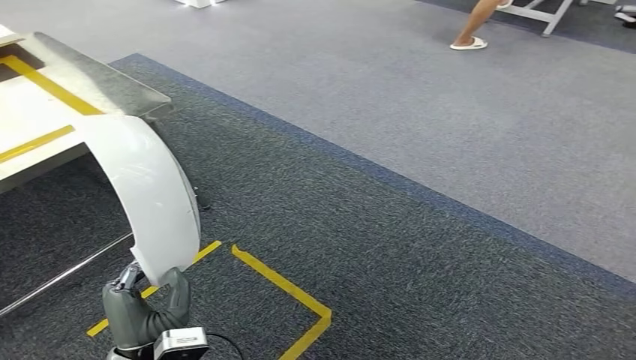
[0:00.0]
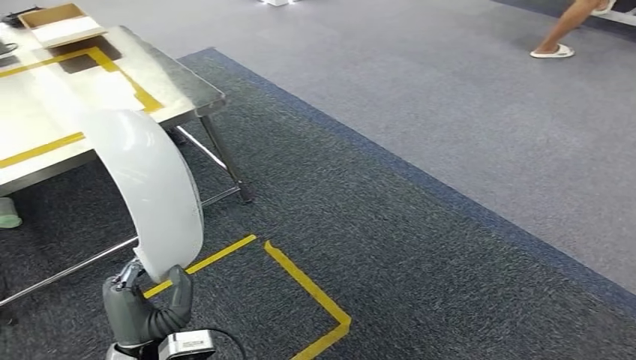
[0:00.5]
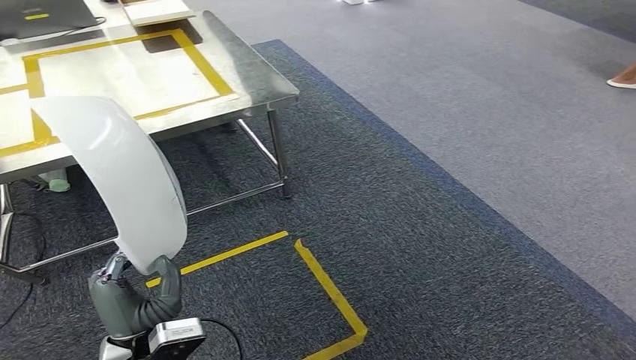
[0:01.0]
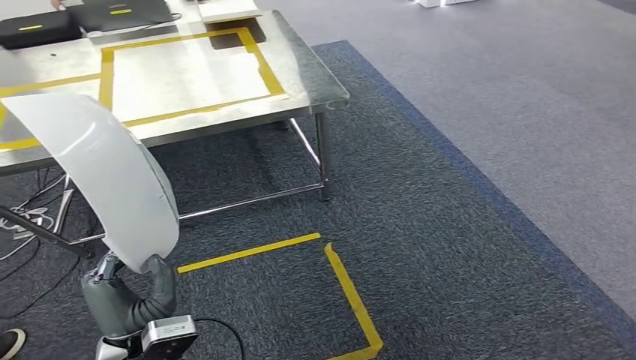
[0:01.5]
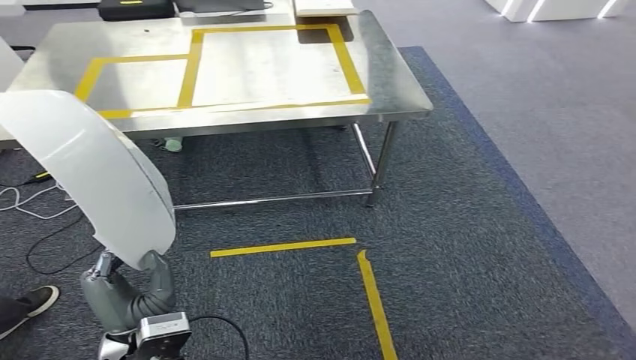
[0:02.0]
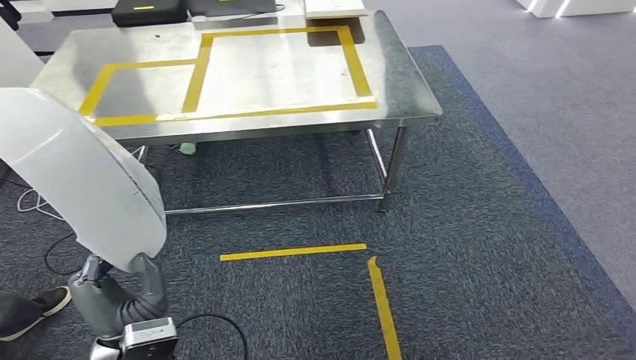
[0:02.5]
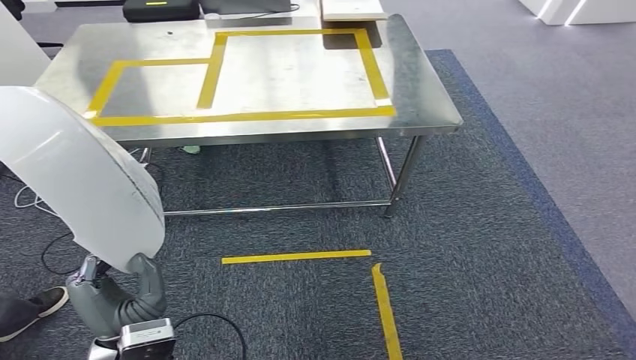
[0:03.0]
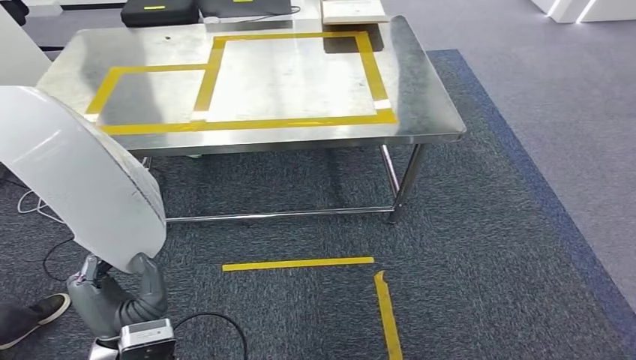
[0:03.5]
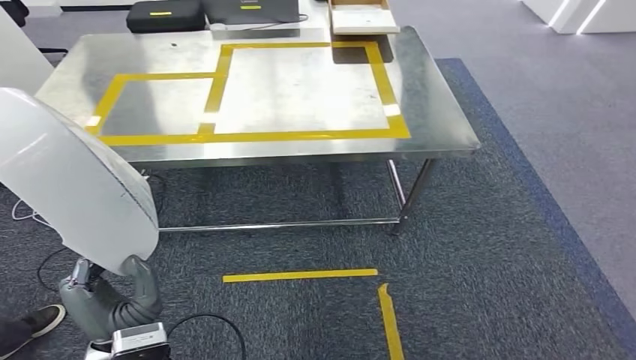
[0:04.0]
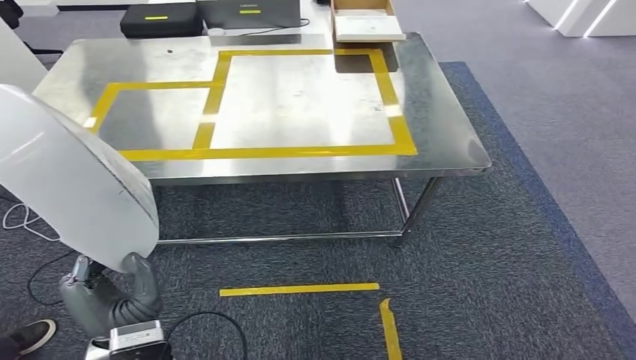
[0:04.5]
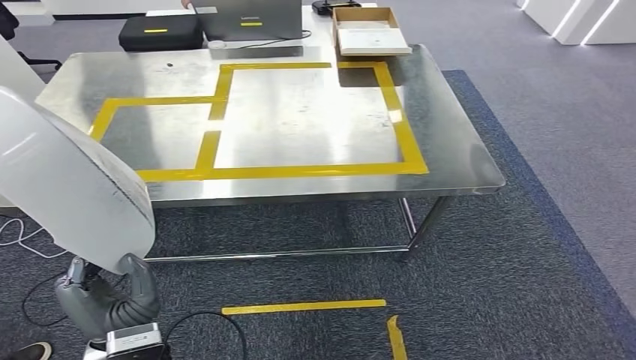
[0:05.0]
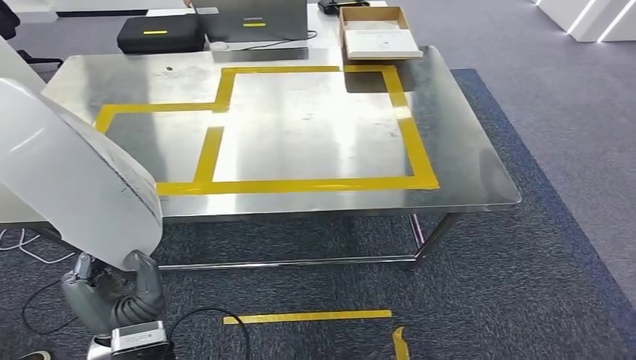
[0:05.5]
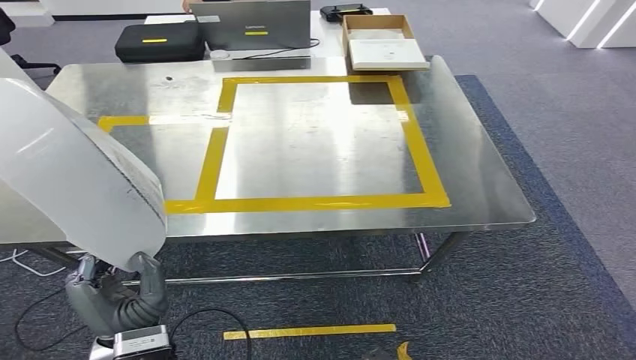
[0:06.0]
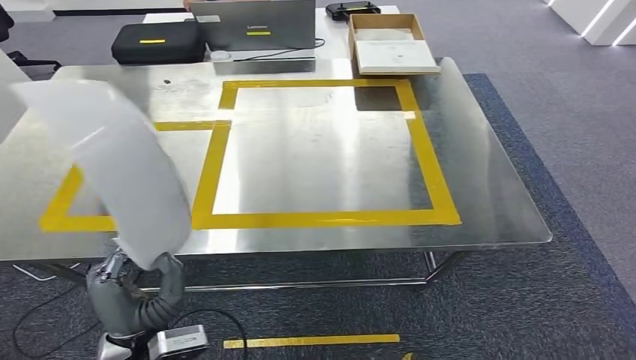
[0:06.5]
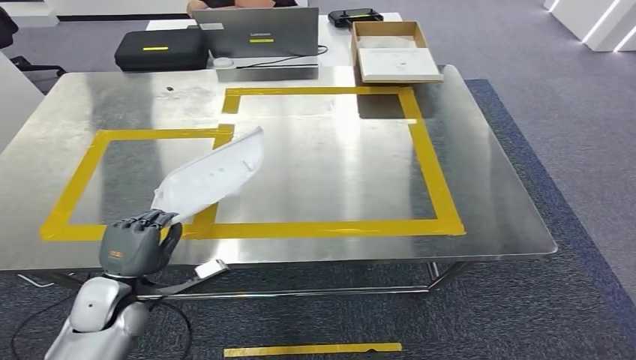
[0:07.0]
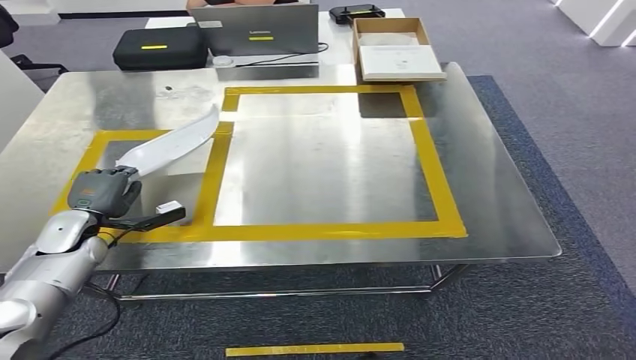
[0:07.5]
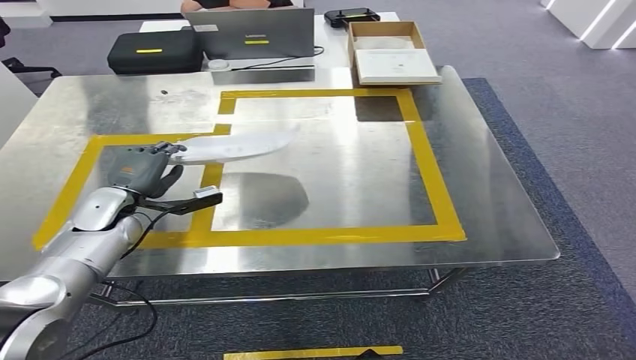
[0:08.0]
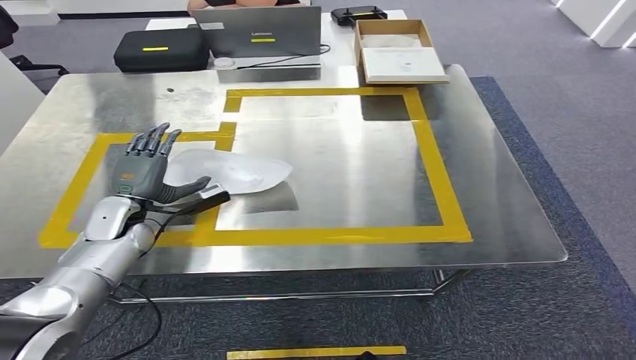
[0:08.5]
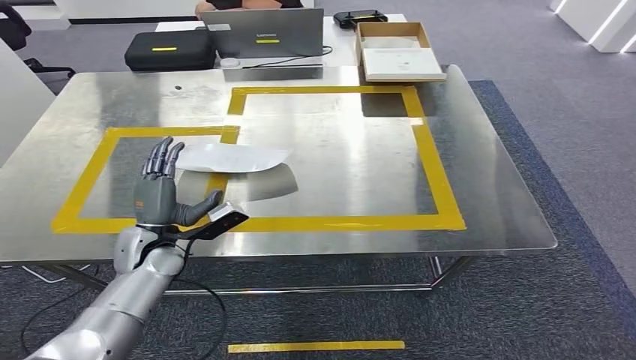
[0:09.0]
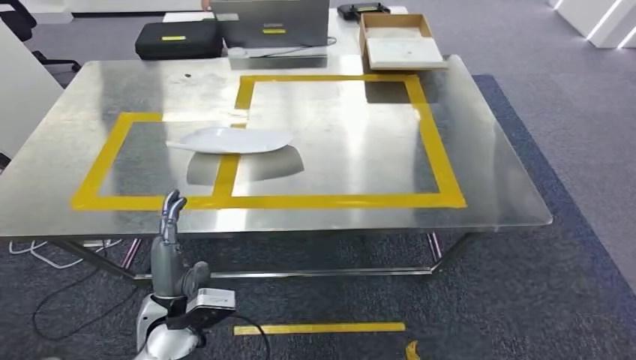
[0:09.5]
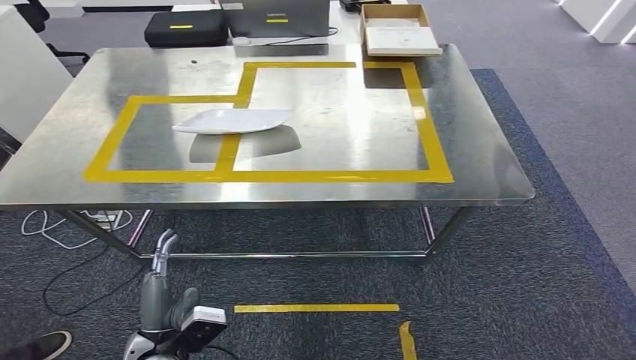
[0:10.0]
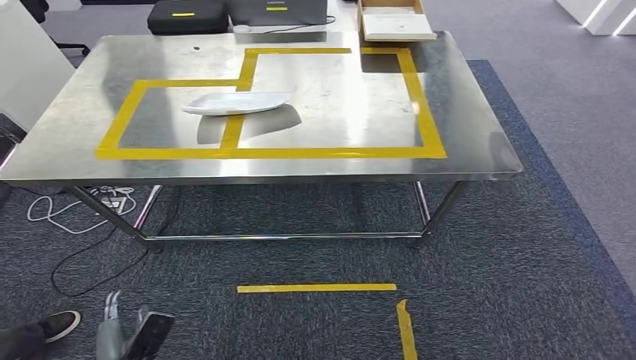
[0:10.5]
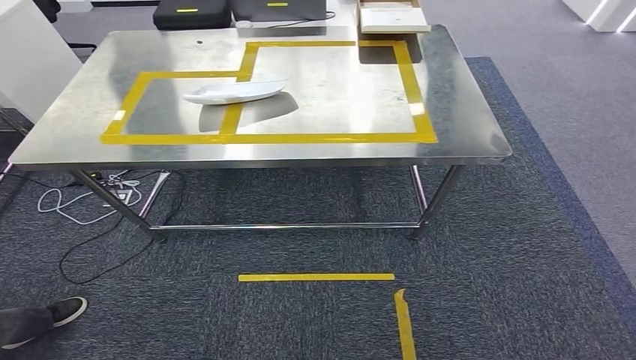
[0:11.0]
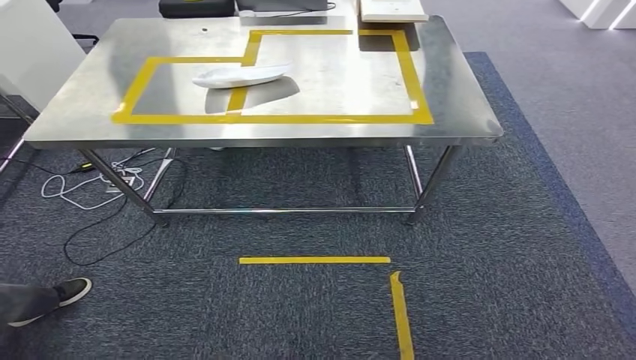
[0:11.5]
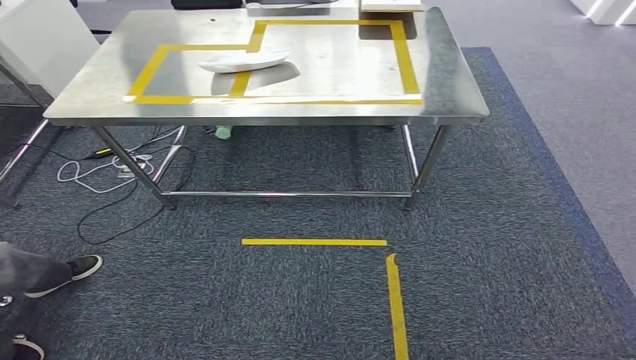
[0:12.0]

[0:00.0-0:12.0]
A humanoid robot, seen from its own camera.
Step, 0:00.0 to 0:05.0: Bring the small component to the front of the workbench.
Step, 0:05.5 to 0:10.5: Insert the small component into the corresponding slot on the workbench.

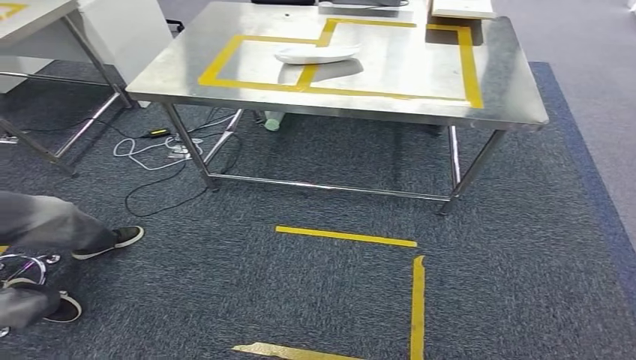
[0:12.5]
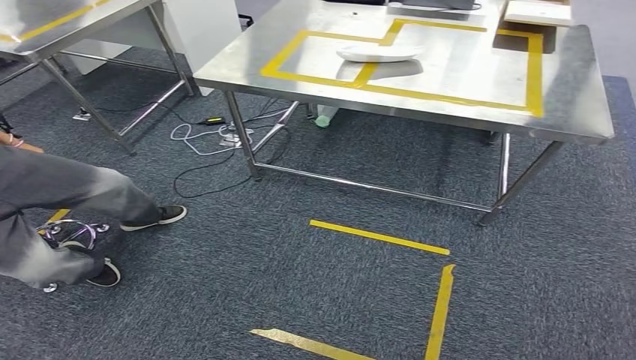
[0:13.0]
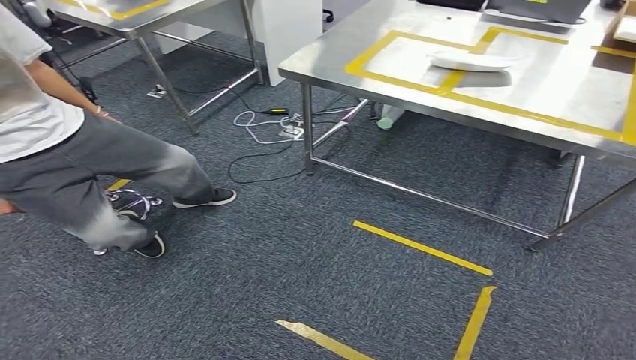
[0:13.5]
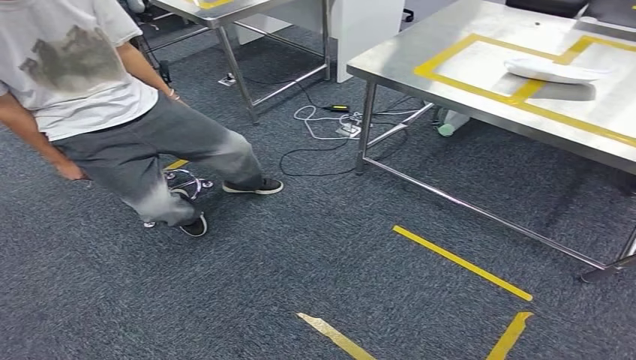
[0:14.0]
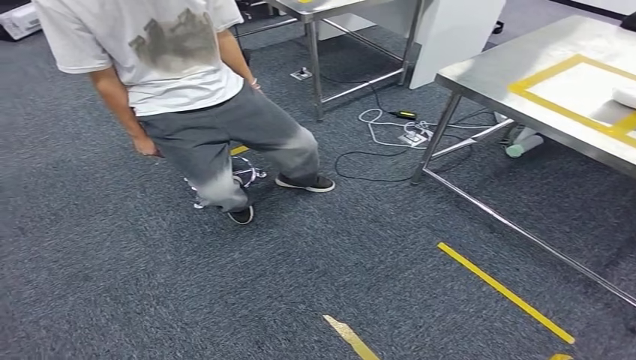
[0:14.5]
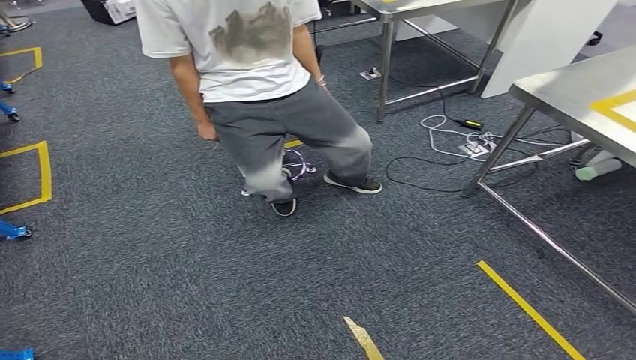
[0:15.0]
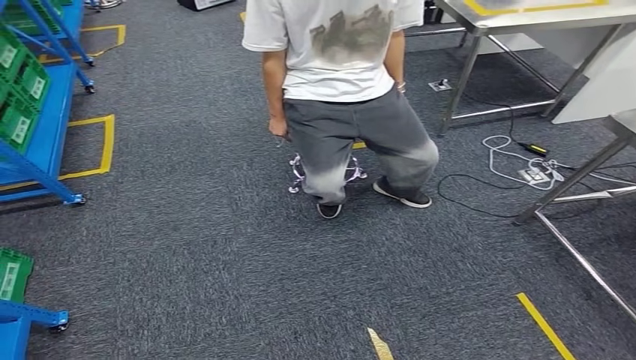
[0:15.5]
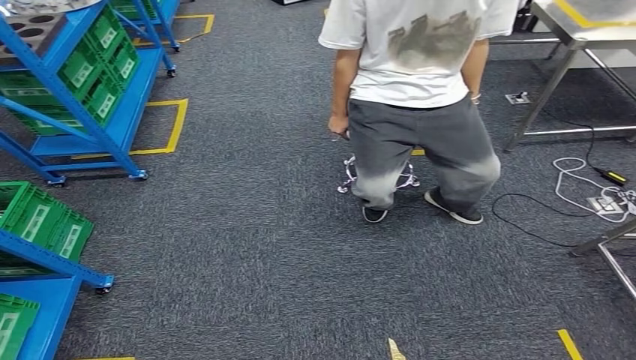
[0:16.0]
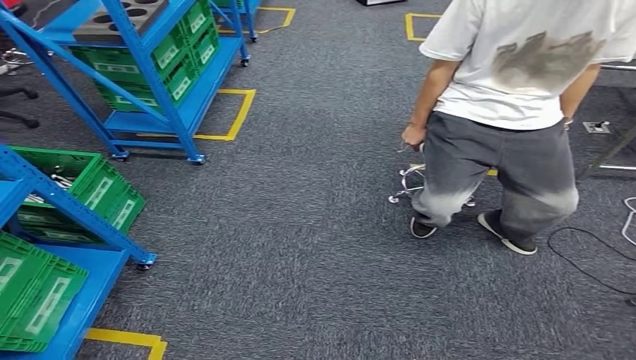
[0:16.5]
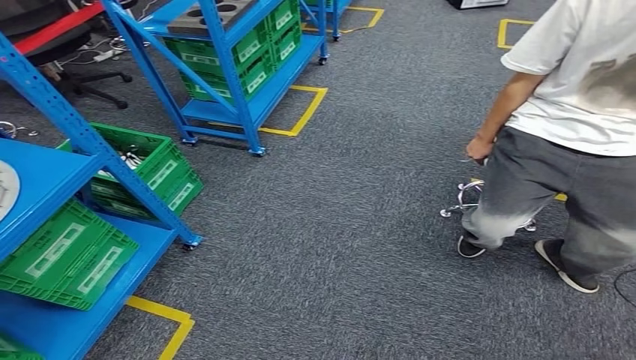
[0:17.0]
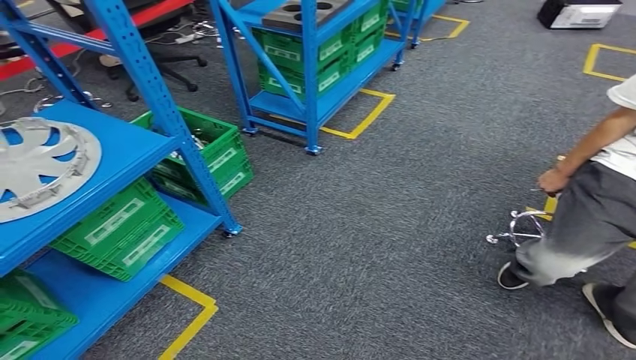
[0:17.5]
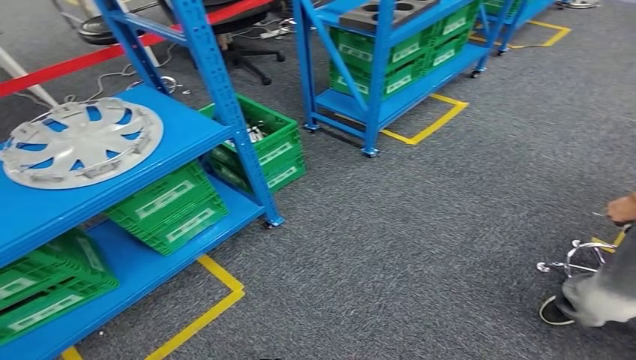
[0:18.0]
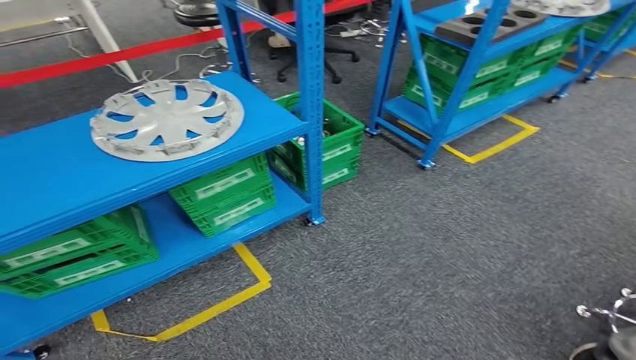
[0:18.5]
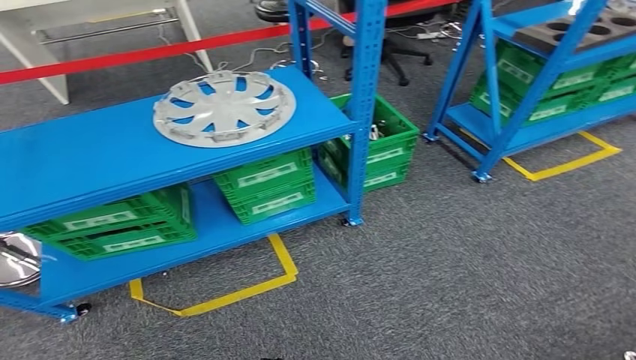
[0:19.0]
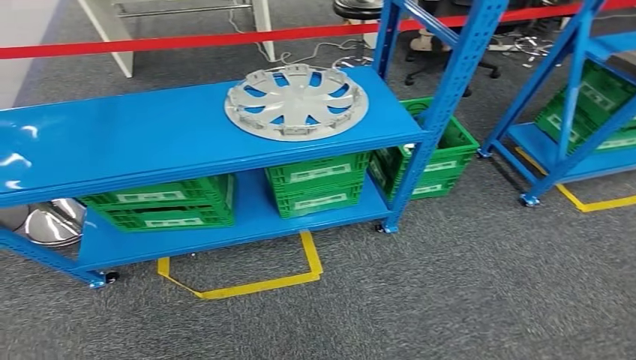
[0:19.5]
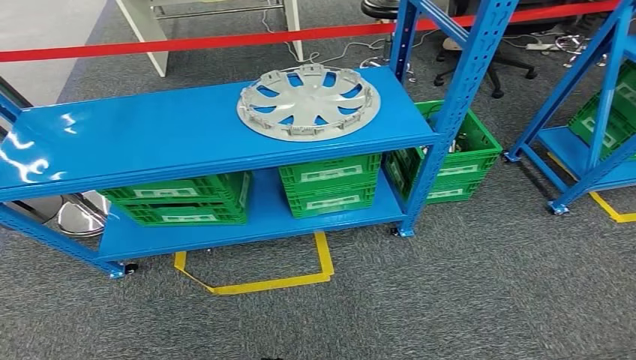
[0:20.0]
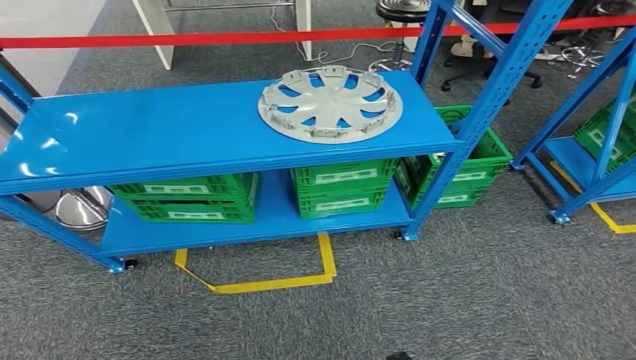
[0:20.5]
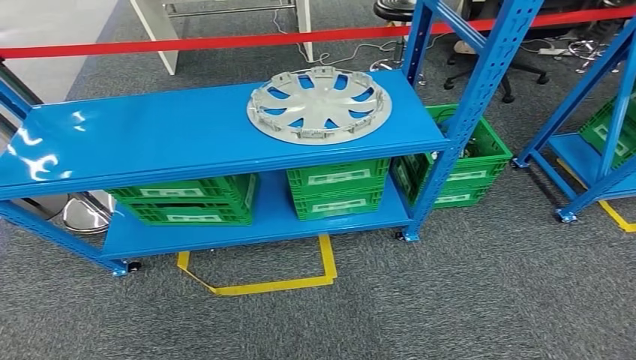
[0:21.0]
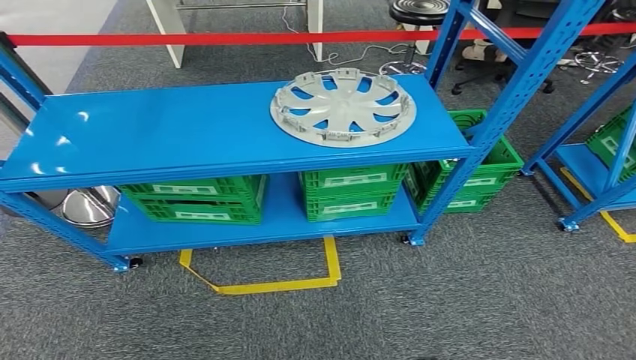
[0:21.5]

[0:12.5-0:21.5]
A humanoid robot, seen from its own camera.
Step, 0:12.5 to 0:21.5: Move to the initial position of the workbench.
